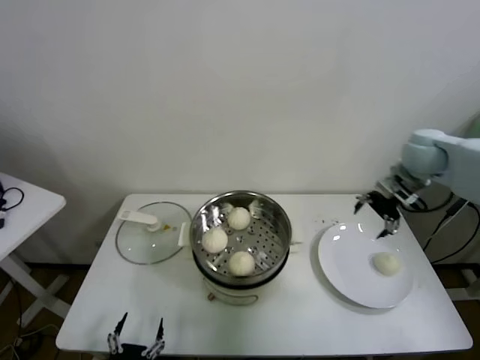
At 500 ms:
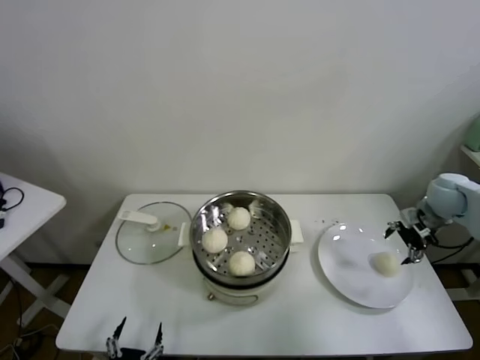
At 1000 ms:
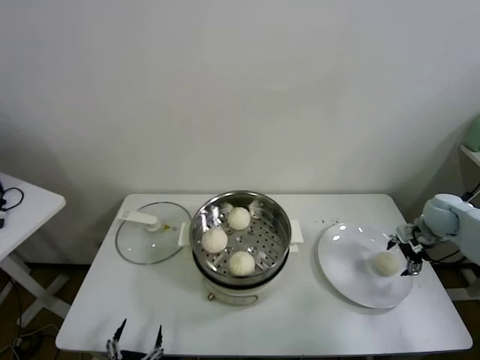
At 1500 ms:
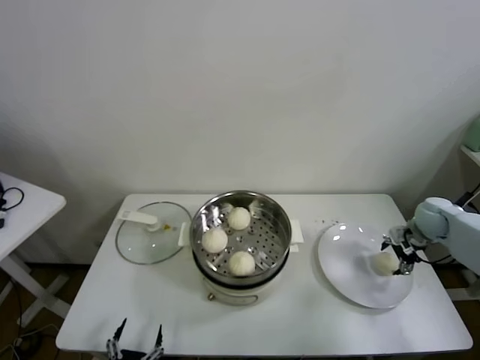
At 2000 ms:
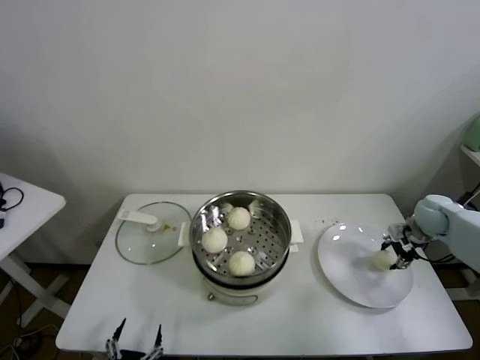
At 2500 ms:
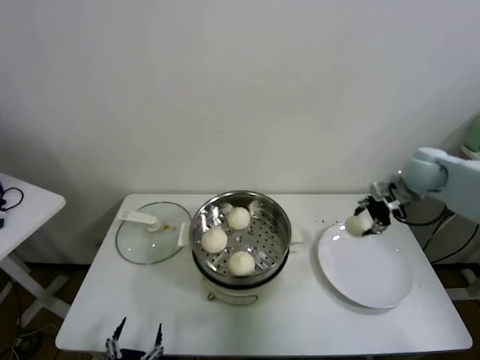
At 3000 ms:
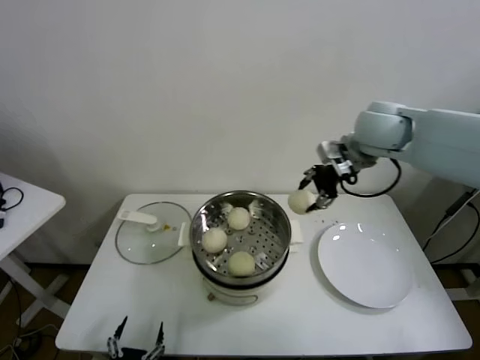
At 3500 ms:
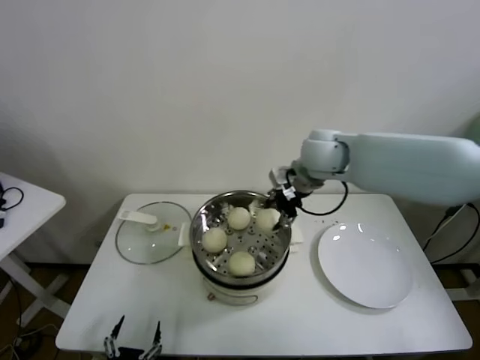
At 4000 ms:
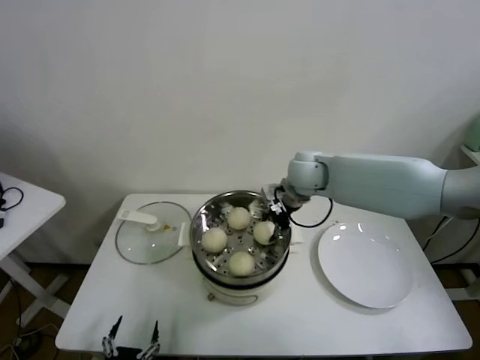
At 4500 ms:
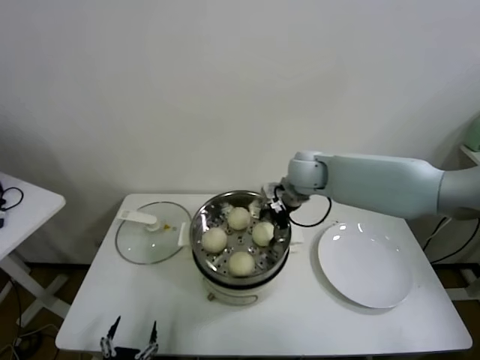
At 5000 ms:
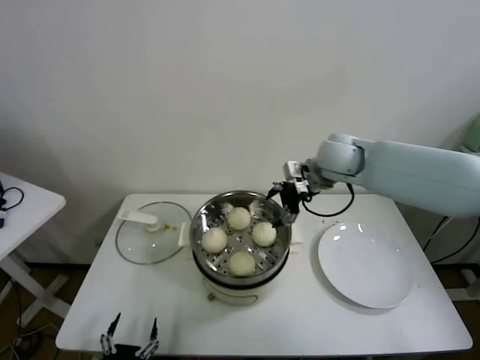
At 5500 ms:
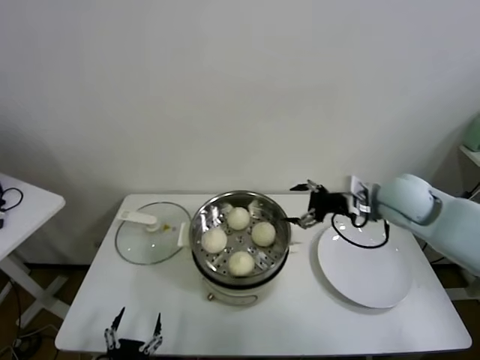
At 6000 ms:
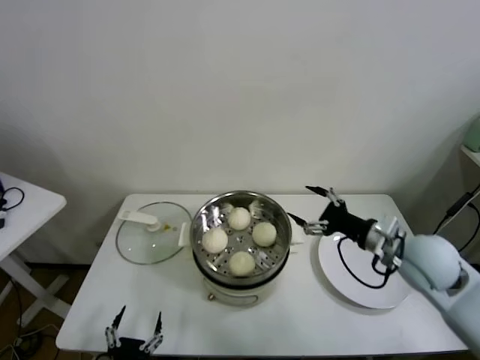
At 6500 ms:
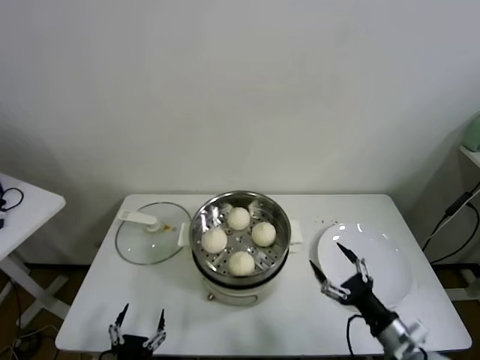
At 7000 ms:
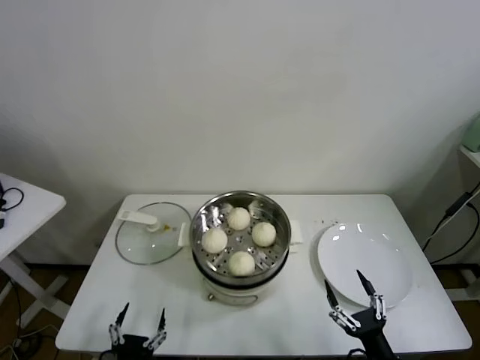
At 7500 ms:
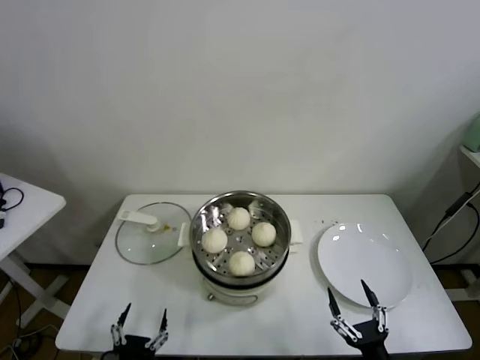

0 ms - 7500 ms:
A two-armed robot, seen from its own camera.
Task of the whole recording: take steamed baozi put them in steamer.
Step, 0 ms - 1500 ms: Grasp the baozi in the plate with right gripper.
Step, 2000 ms - 4500 ms: Place the baozi on the steamer with right gripper.
0 ms - 2000 ms: The right gripper shifts some 20 cm downward and to the right, and closes its fingers.
2000 ms - 4000 ms: The right gripper goes roughly 35 cm to the left.
4000 ms - 5500 ms: The right gripper shifts approximately 20 cm to the right and backward, and opens its fingers.
5500 ms - 7500 ms: The right gripper is displaced backward and downward by some 40 cm.
